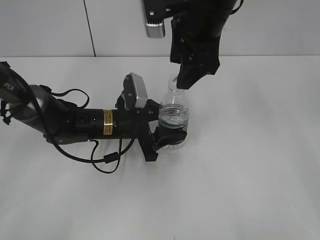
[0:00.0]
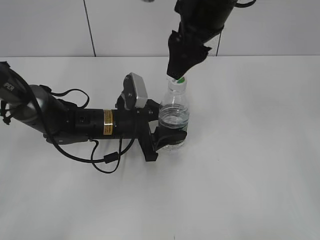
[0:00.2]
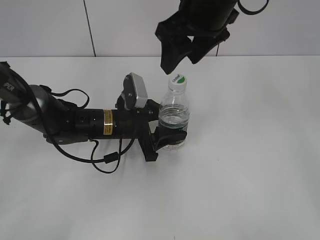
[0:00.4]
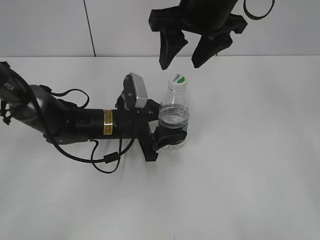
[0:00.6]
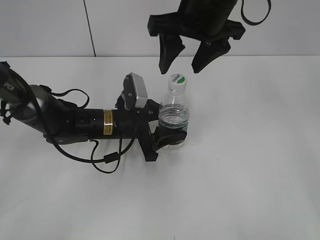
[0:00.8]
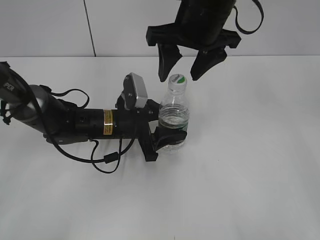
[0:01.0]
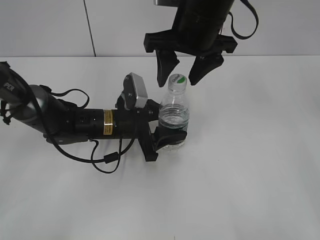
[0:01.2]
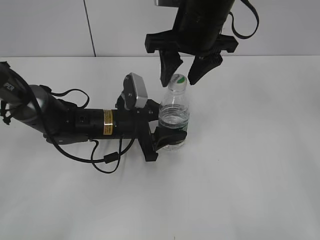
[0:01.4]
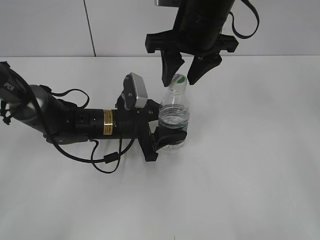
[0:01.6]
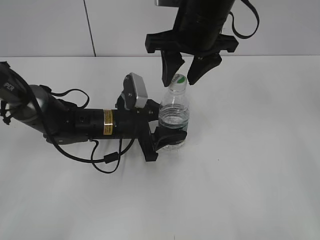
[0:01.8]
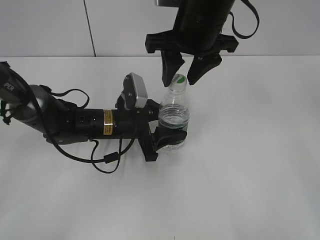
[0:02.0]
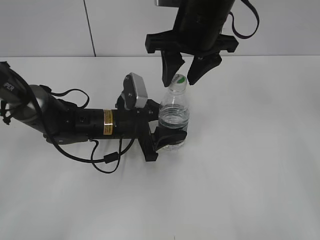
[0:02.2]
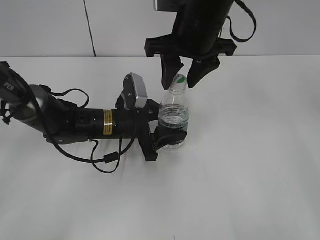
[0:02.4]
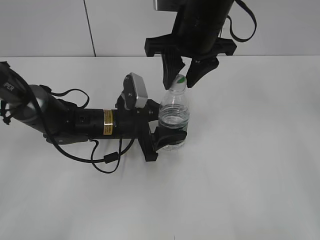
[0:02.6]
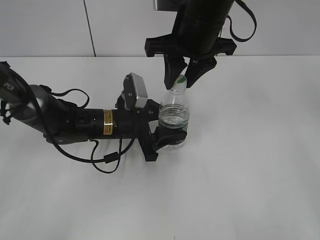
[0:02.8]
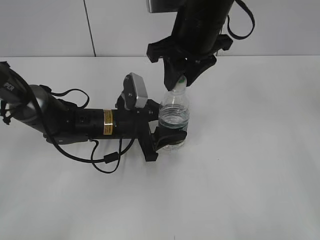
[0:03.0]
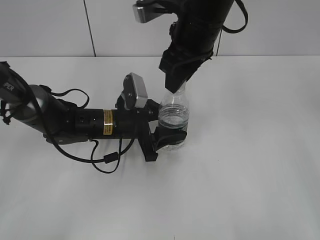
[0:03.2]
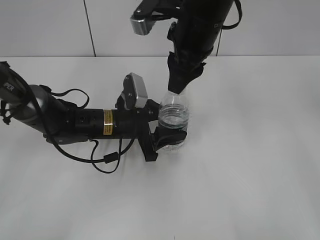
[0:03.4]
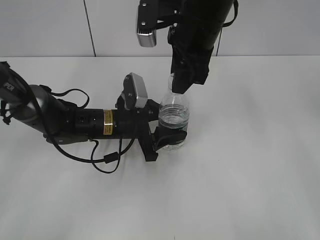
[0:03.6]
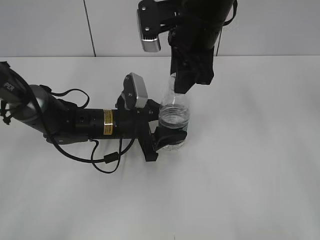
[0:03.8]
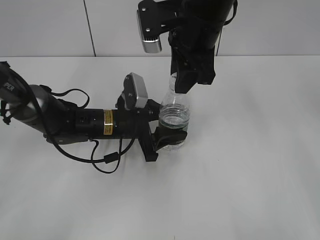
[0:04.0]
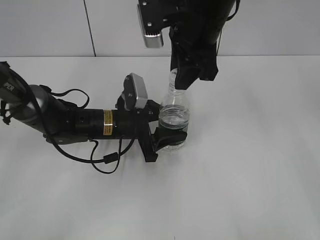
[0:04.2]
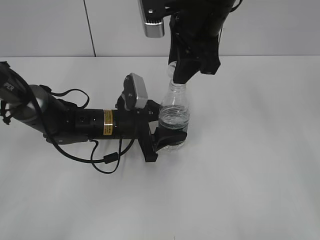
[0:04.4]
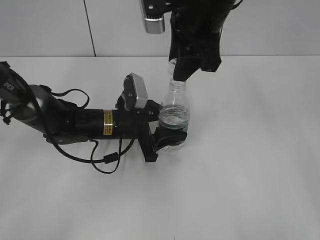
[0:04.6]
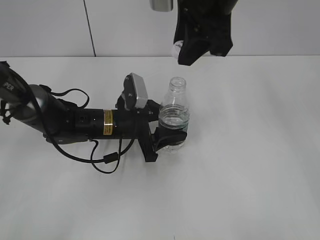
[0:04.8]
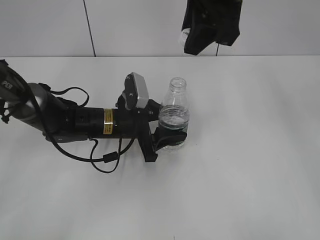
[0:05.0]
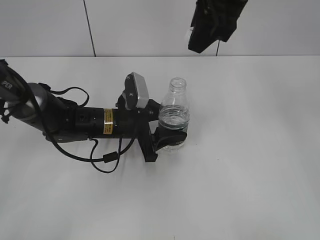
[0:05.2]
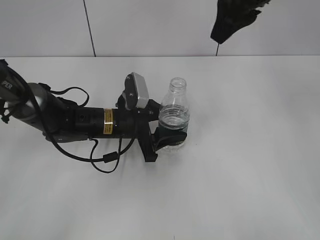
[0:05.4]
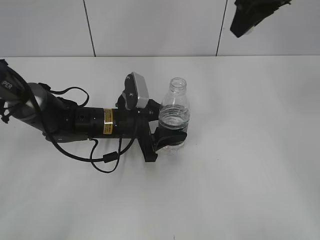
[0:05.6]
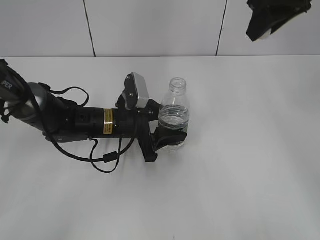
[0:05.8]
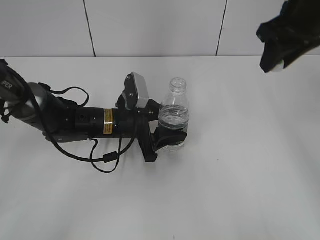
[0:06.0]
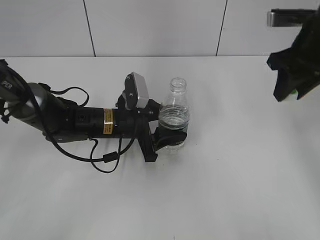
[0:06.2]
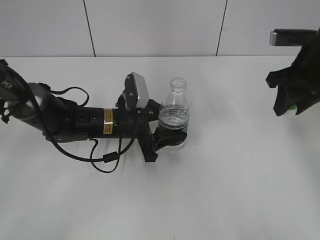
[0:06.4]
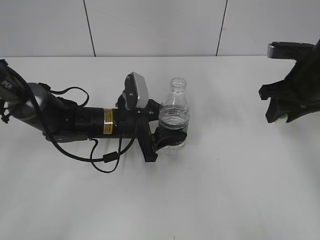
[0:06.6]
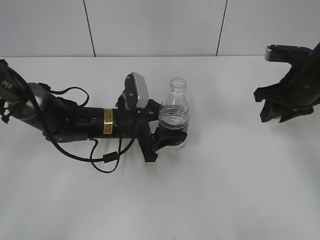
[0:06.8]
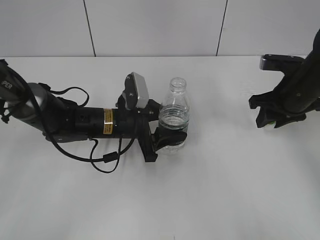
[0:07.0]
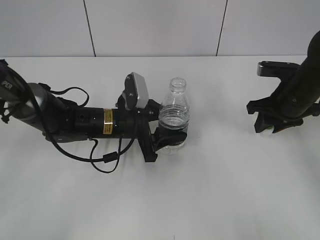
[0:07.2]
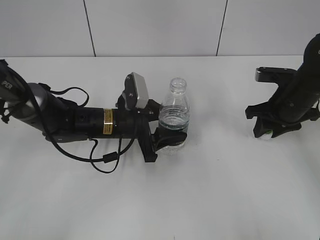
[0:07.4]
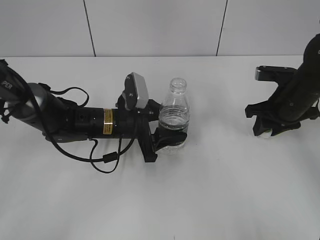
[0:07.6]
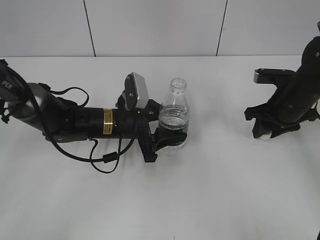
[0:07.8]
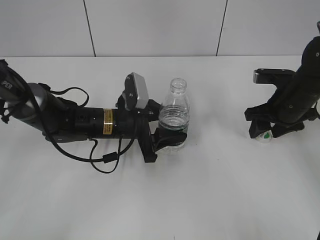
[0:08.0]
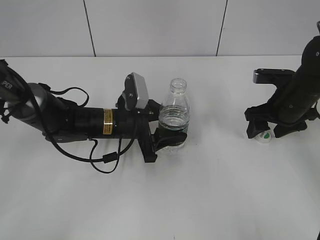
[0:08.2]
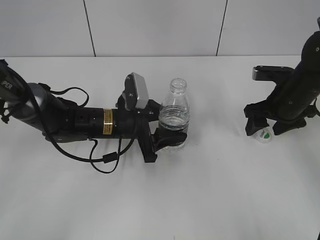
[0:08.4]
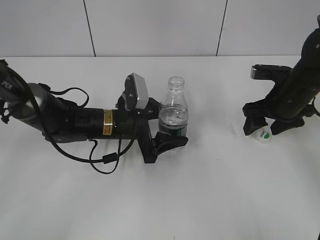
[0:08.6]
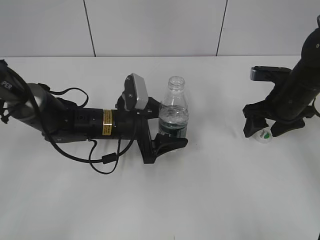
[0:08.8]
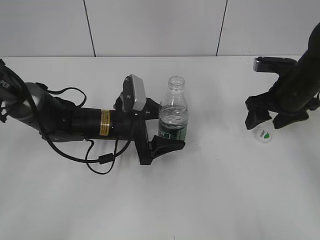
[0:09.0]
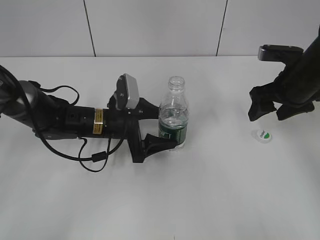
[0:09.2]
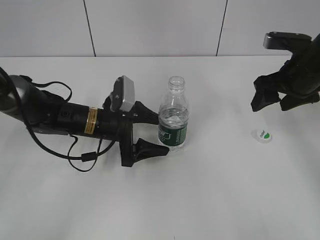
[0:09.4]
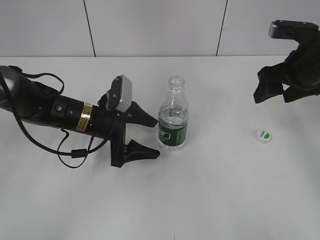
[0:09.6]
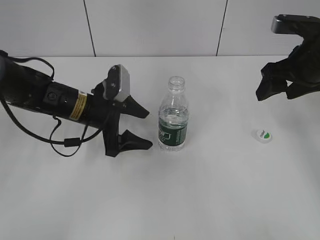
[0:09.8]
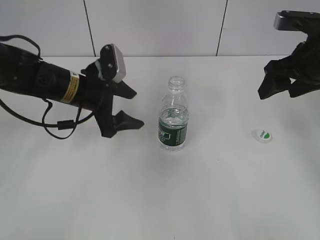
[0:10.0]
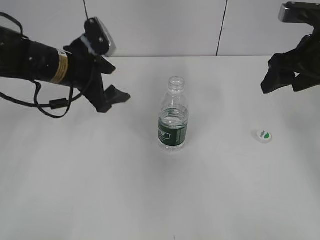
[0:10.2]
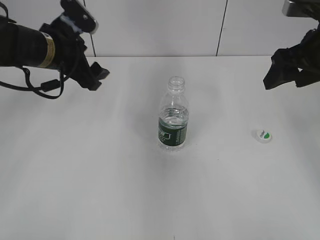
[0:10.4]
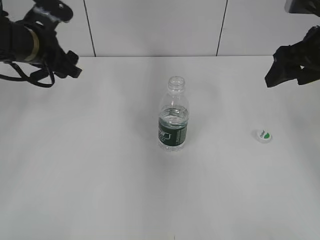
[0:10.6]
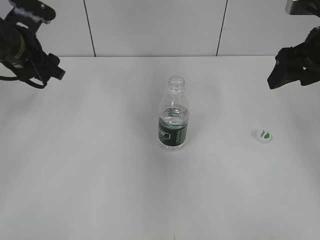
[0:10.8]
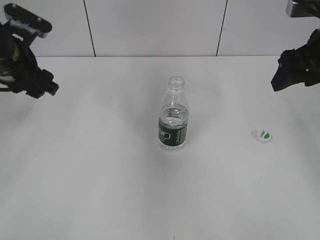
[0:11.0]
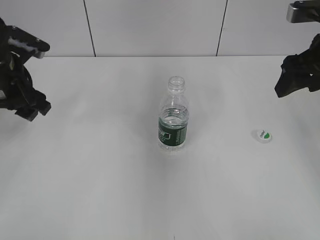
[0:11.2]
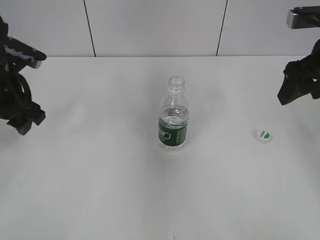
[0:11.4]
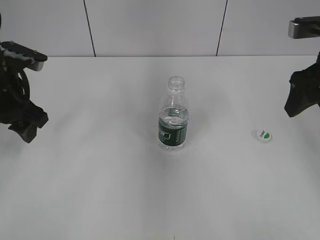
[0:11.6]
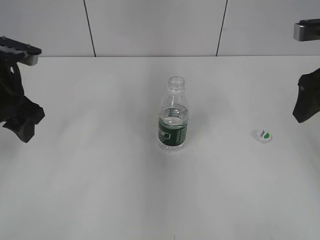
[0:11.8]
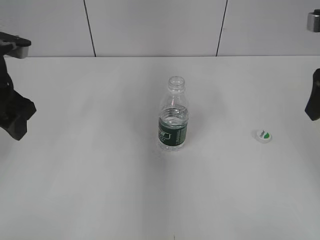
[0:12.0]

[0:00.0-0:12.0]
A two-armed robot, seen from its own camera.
Step, 0:00.0 to 0:04.6: Unscrew the bottle cap with the right gripper while holding the bottle with the left gripper.
0:00.0 to 0:01.6: The right gripper closes.
0:01.6 to 0:03.0: The right gripper closes its fingers.
0:04.4 to 0:06.0: The right gripper moves to the right, some 15 cm.
0:06.0 to 0:07.6: The right gripper is displaced downward by roughly 20 cm.
0:07.6 to 0:09.0: The right gripper opens its fingers. Meanwhile the left gripper opens.
0:09.0 to 0:10.4: The right gripper heads upward, covering roughly 10 cm. The left gripper shifts about 15 cm upward and to the left.
0:10.4 to 0:12.0: The left gripper moves backward and to the left, about 10 cm, while the right gripper travels backward by approximately 5 cm.

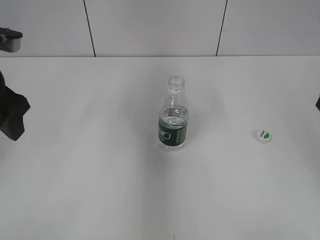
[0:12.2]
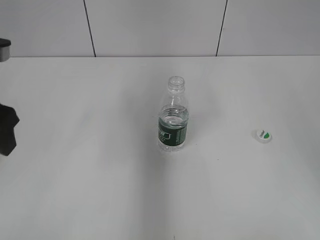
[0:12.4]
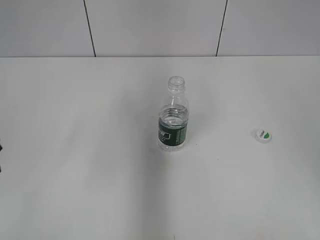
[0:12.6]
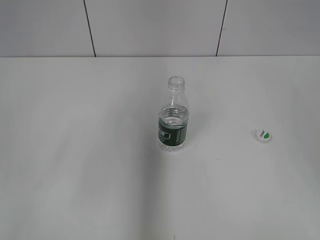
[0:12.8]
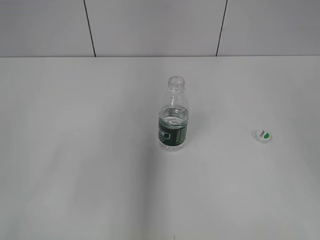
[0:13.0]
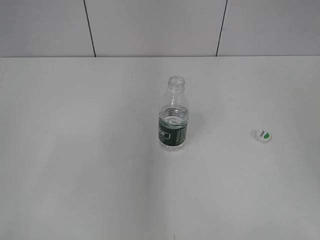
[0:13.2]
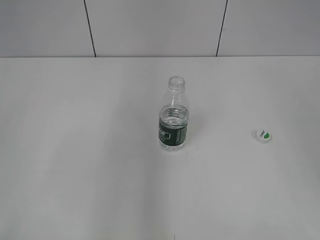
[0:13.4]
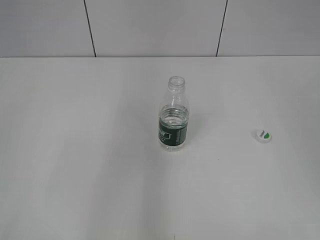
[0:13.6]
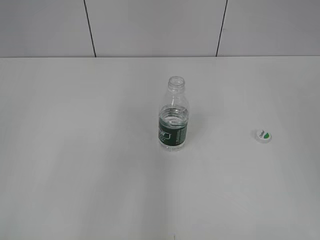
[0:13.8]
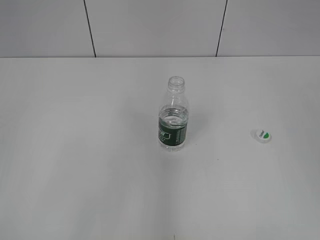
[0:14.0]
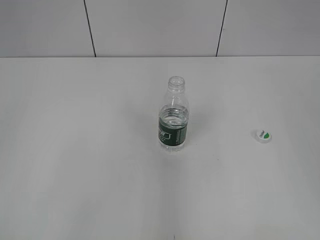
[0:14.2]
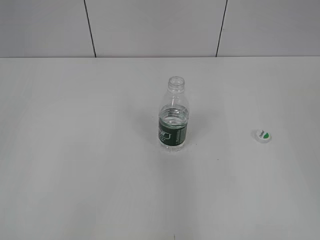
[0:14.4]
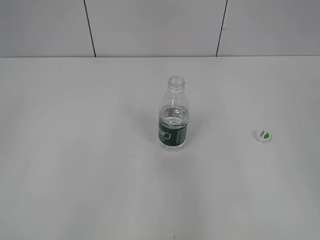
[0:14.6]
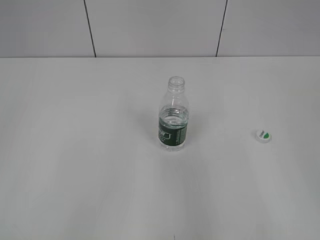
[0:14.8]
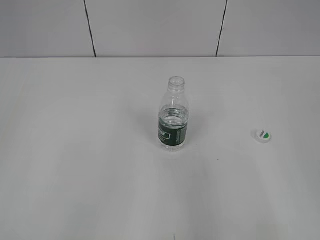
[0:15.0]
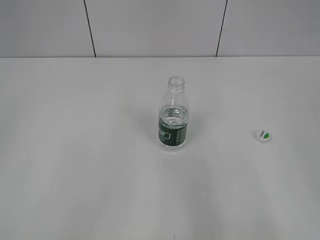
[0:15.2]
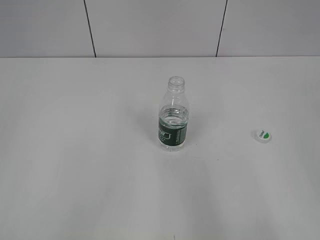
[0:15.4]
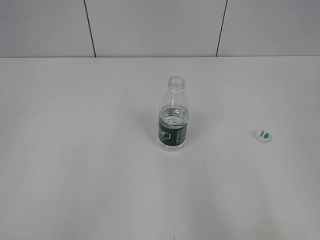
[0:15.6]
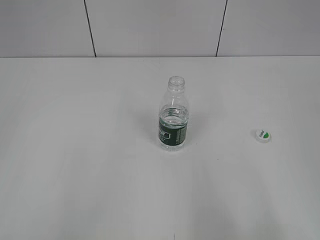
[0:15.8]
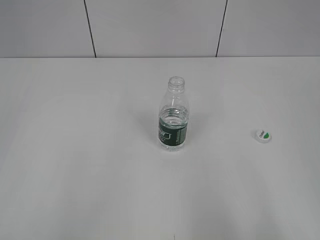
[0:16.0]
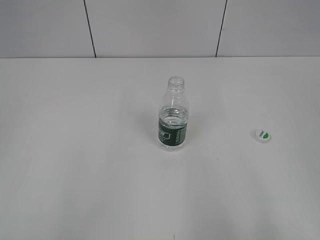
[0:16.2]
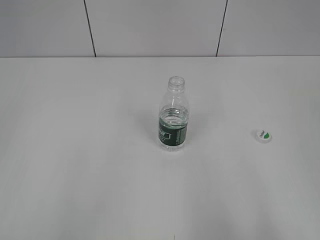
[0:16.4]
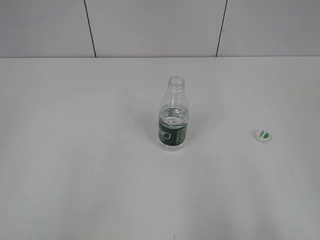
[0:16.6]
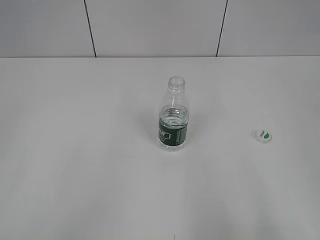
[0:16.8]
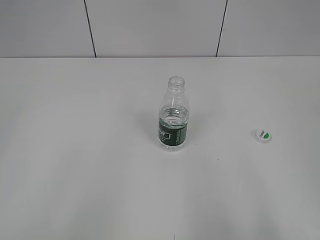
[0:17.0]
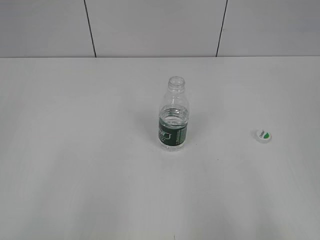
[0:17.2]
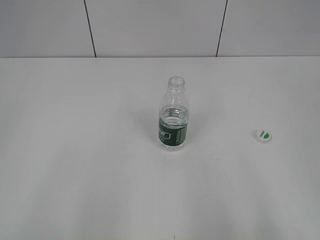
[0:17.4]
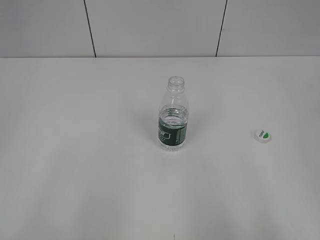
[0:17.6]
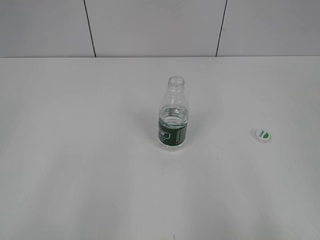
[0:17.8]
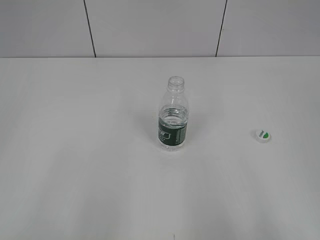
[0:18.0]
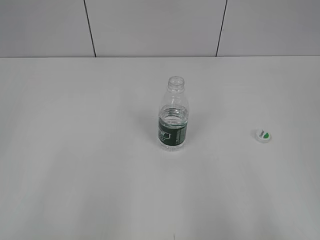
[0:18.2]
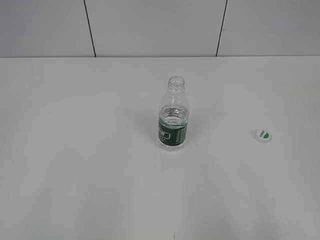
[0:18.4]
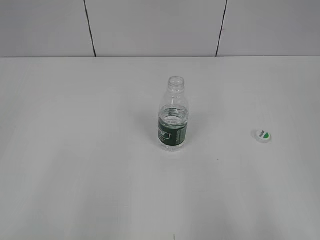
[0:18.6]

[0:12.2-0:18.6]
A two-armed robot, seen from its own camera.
0:12.2 to 0:13.8: The left gripper travels backward by approximately 20 cm.
0:13.8 to 0:15.4: The right gripper goes approximately 15 cm downward and backward. Meanwhile the left gripper heads backward, covering about 5 cm.
